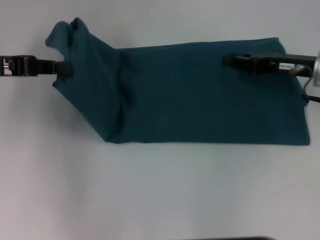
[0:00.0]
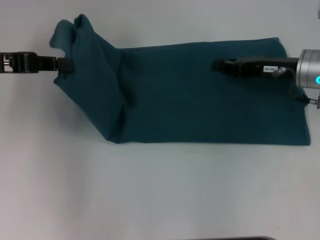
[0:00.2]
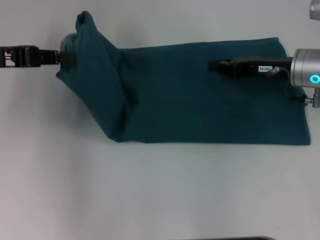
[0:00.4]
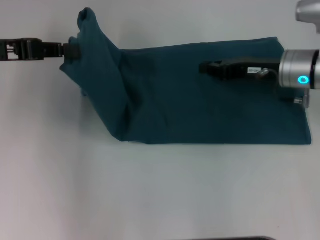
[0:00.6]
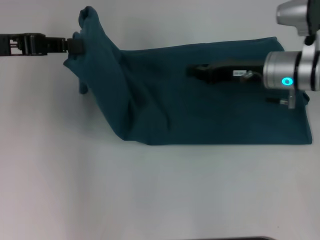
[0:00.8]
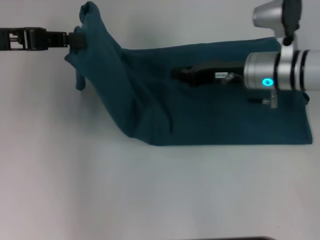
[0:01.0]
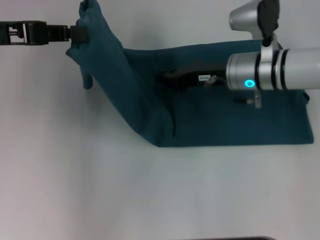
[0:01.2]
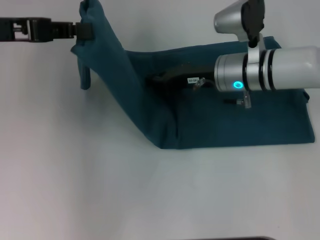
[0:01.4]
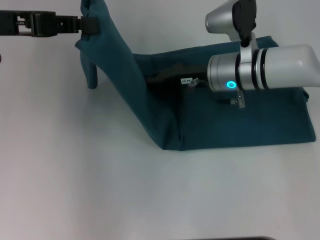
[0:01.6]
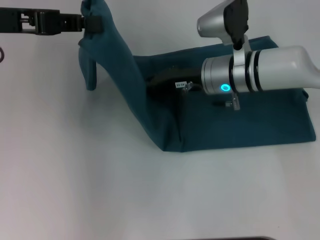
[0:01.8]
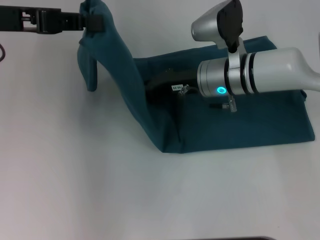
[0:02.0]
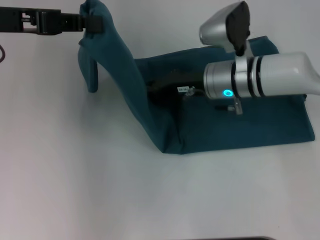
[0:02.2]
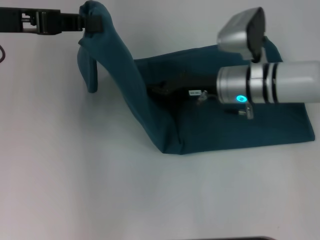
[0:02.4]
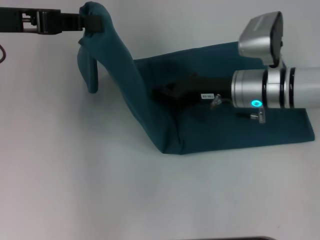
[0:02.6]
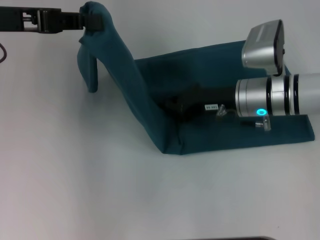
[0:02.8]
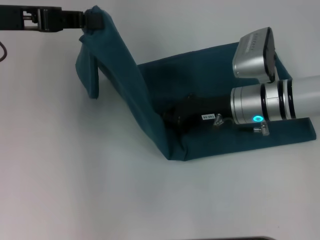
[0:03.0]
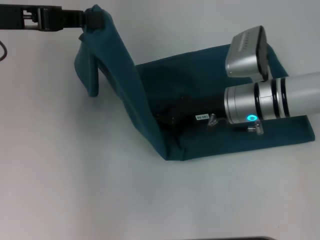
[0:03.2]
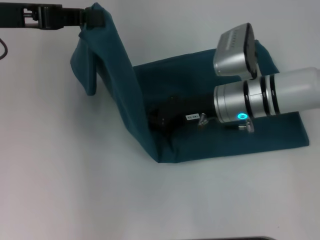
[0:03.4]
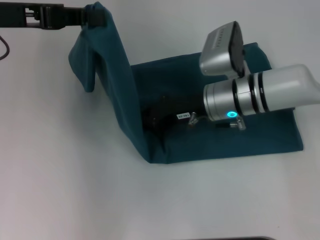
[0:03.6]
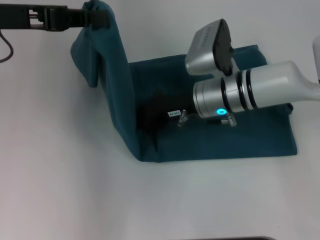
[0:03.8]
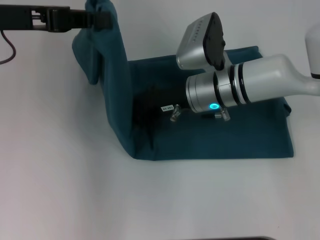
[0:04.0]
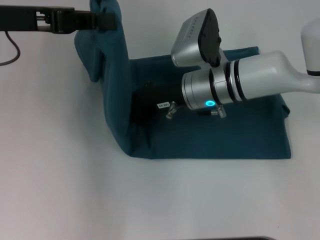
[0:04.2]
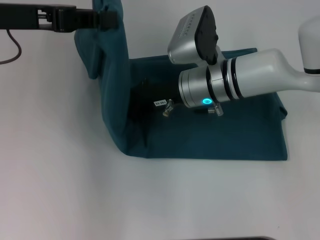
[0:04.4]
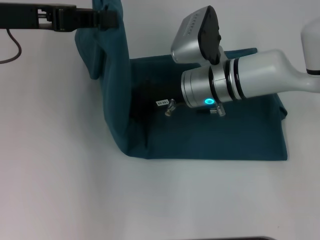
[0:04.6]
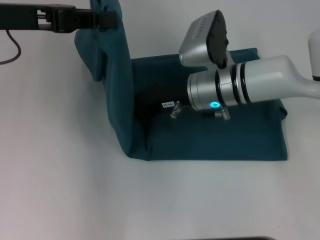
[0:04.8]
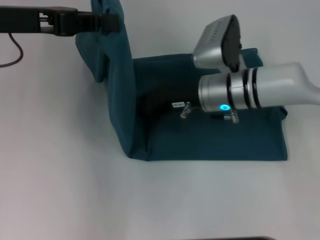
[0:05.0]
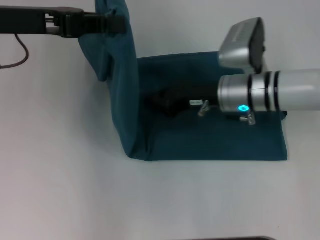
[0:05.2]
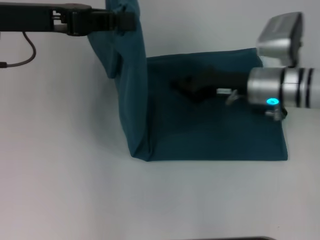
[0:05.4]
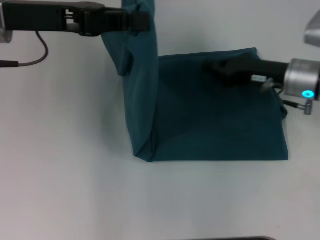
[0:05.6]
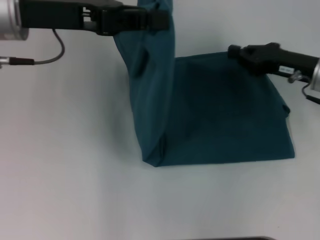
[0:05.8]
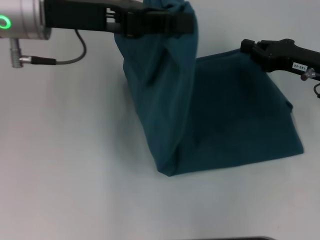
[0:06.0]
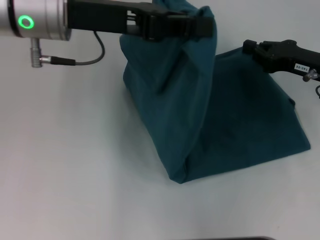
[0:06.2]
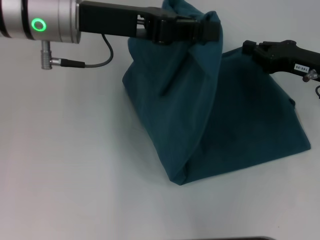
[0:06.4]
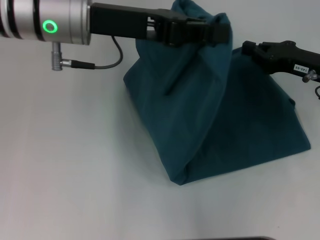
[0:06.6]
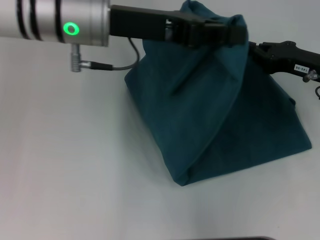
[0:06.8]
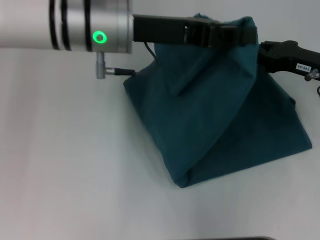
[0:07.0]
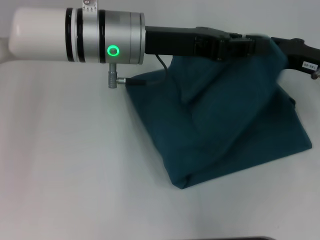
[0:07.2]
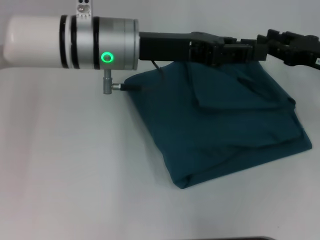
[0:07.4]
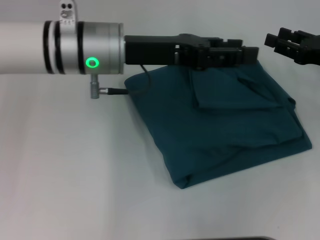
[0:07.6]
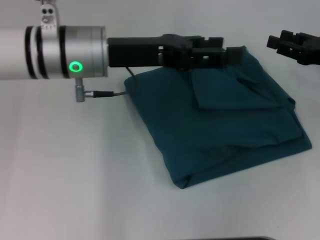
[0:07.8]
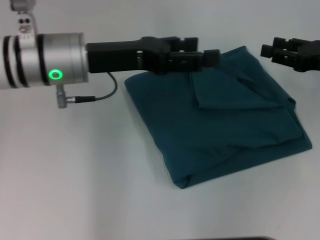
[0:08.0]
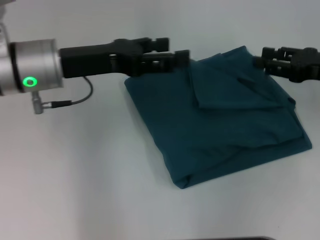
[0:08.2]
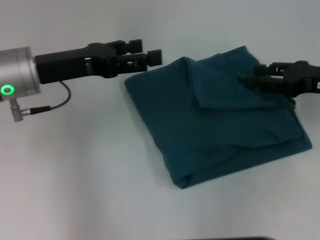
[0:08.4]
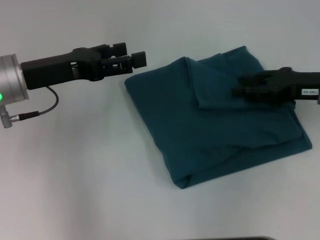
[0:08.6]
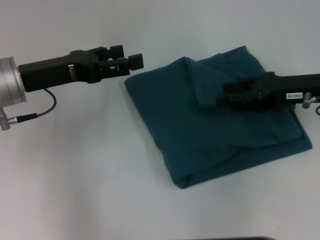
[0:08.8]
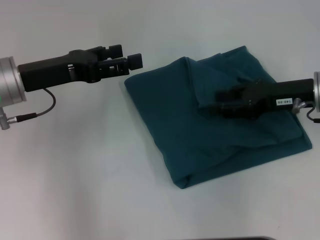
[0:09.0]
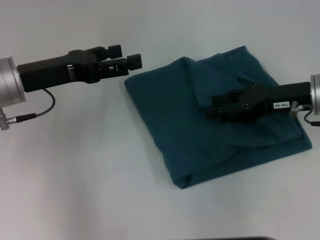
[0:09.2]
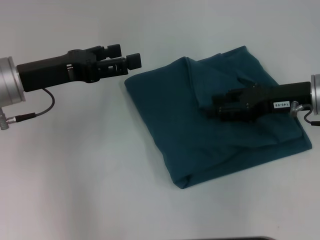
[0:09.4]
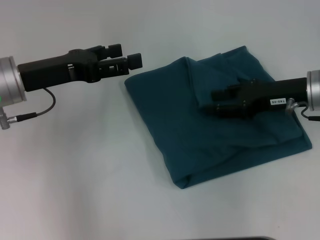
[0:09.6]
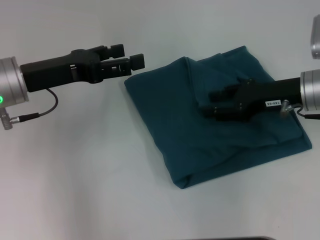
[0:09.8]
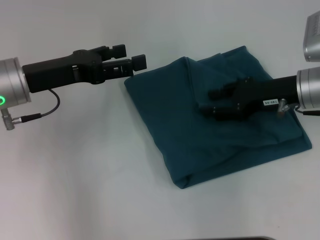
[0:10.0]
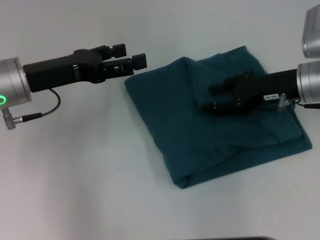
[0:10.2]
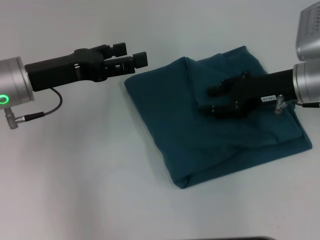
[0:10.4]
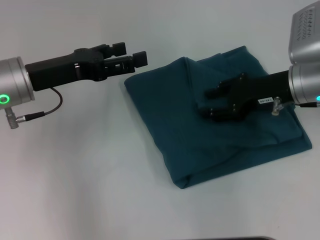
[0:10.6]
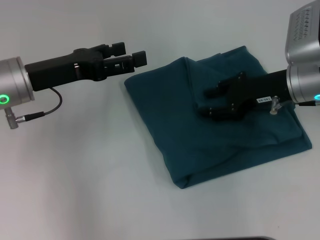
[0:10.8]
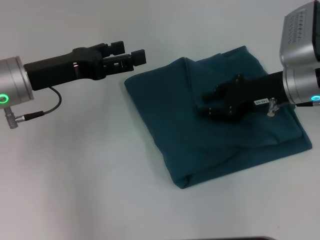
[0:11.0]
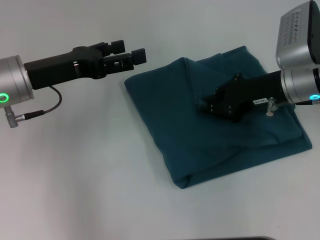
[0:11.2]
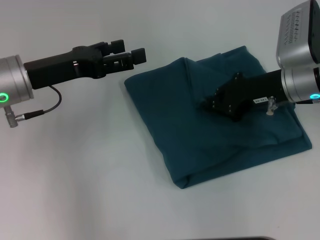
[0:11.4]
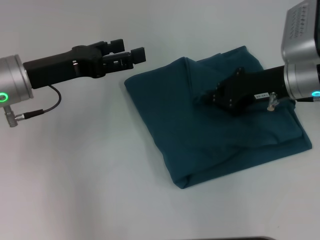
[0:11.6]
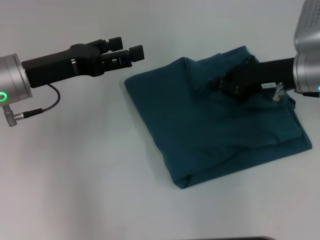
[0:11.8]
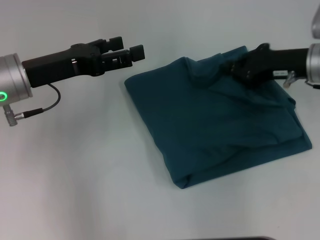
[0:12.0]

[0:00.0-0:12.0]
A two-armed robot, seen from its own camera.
Step, 0:00.0 to 0:05.0: Press the middle of the clothes with your right hand.
Step, 0:05.2 to 0:07.6: Fold the clothes to the left.
0:00.0 to 0:01.6: The right gripper moves to the left, roughly 15 cm, and closes up. The left gripper ends up some 5 cm from where it was.
0:01.6 to 0:03.0: The right gripper ends up some 5 cm from where it was.
0:03.0 to 0:04.4: The right gripper moves to the left, about 10 cm.
0:04.4 to 0:06.0: The right gripper shifts about 20 cm to the right. Meanwhile the left gripper heads to the right, covering roughly 10 cm.
0:06.0 to 0:07.6: The right gripper opens up. Meanwhile the left gripper moves to the right and downward, roughly 10 cm.
0:07.6 to 0:09.0: The left gripper travels to the left by about 10 cm, and opens its fingers. Meanwhile the right gripper moves to the left, about 5 cm.
0:09.0 to 0:10.4: There are only small adjustments of the grippers.
0:10.4 to 0:12.0: The right gripper closes its fingers.

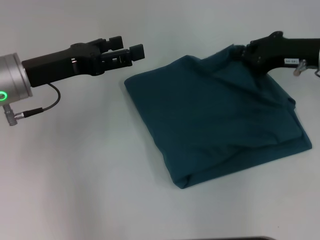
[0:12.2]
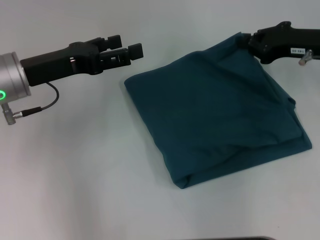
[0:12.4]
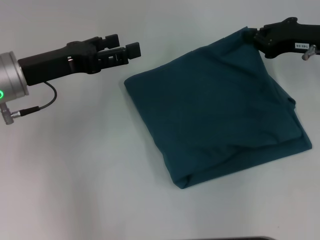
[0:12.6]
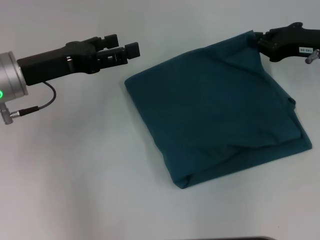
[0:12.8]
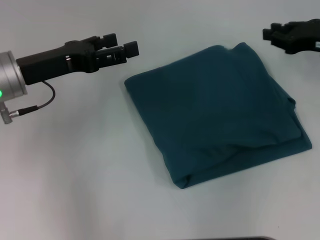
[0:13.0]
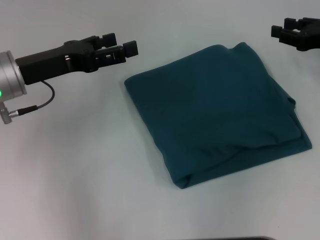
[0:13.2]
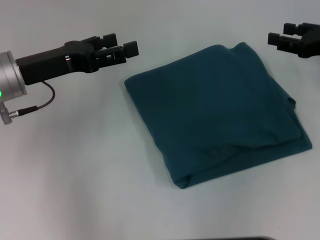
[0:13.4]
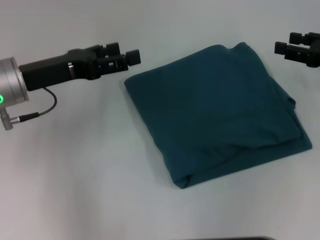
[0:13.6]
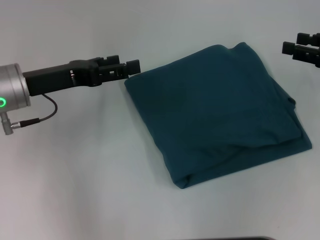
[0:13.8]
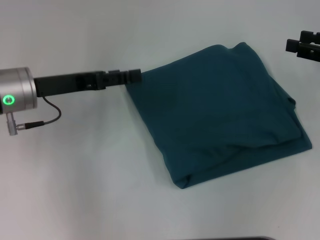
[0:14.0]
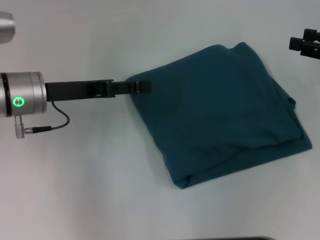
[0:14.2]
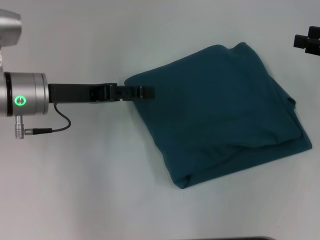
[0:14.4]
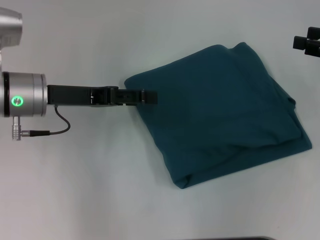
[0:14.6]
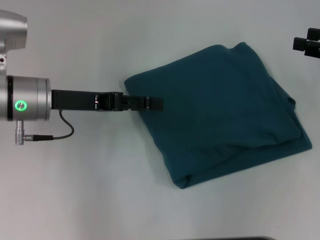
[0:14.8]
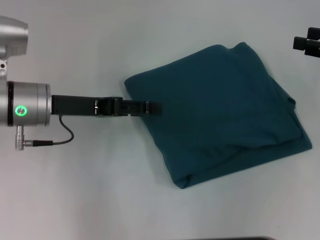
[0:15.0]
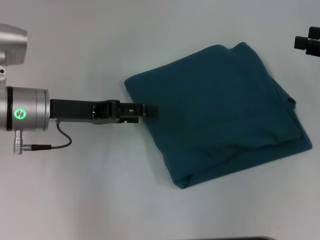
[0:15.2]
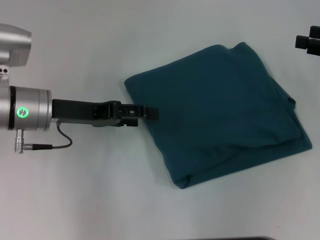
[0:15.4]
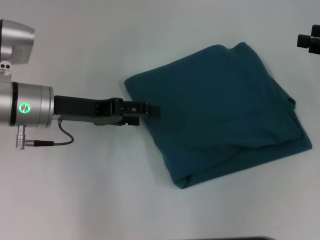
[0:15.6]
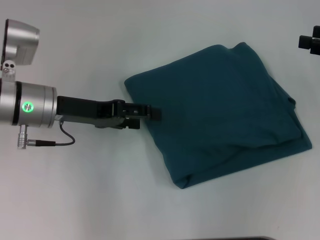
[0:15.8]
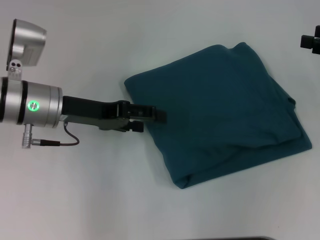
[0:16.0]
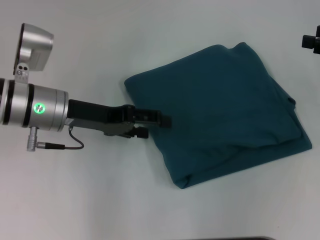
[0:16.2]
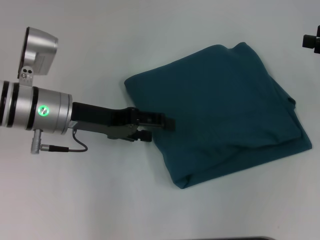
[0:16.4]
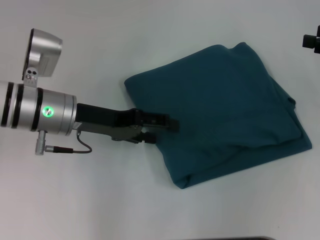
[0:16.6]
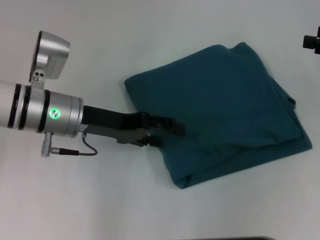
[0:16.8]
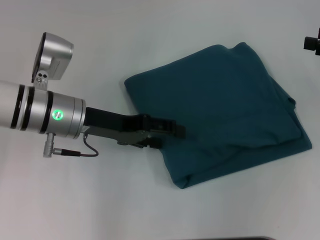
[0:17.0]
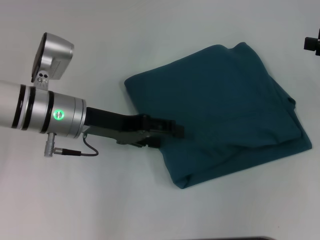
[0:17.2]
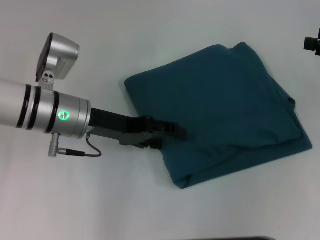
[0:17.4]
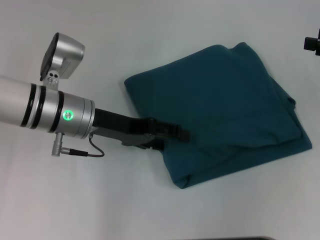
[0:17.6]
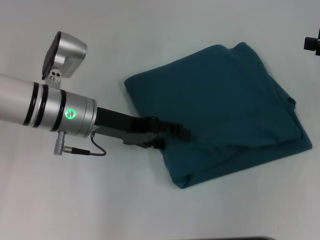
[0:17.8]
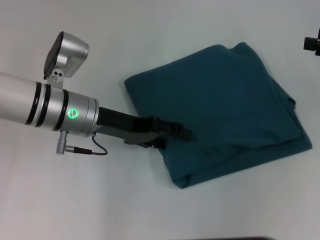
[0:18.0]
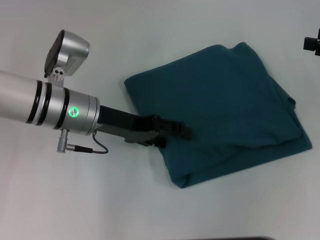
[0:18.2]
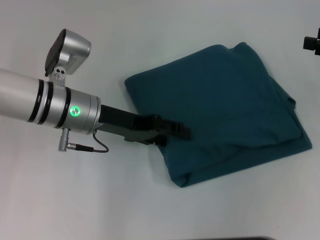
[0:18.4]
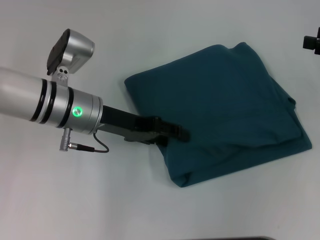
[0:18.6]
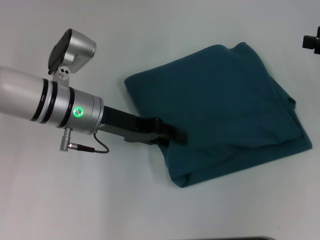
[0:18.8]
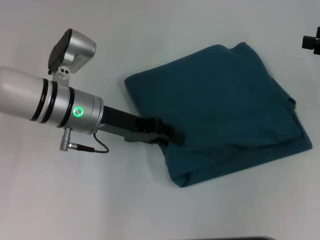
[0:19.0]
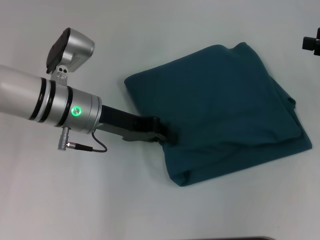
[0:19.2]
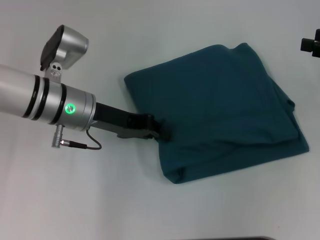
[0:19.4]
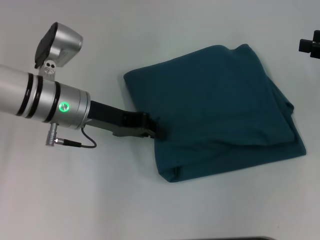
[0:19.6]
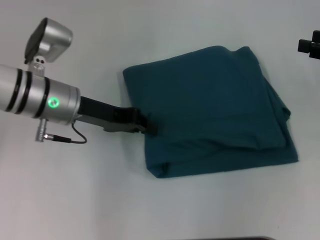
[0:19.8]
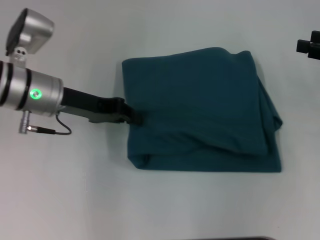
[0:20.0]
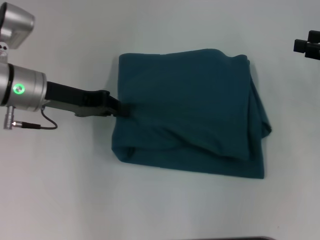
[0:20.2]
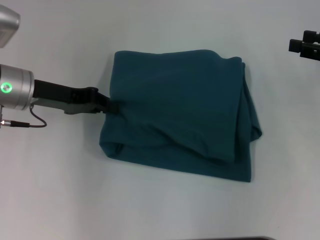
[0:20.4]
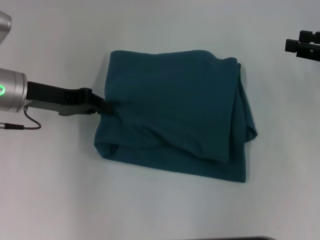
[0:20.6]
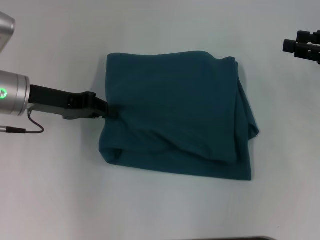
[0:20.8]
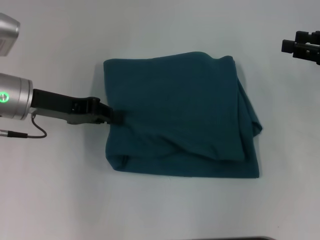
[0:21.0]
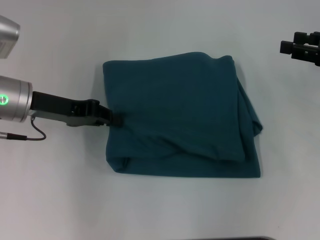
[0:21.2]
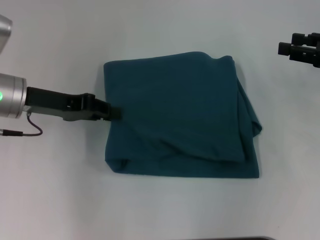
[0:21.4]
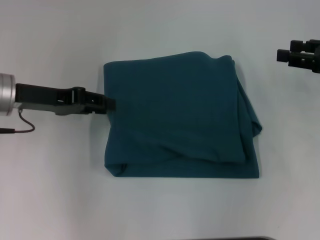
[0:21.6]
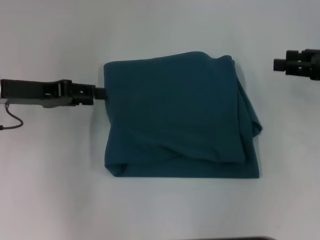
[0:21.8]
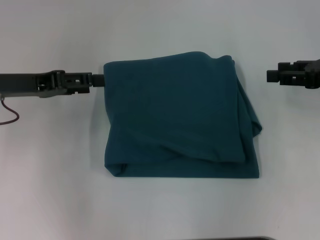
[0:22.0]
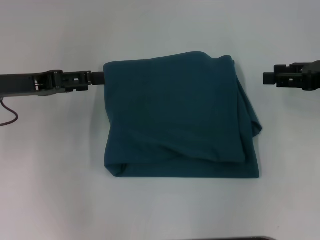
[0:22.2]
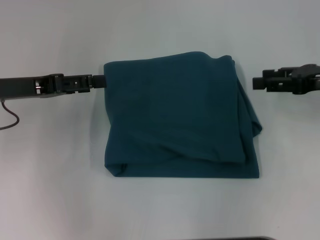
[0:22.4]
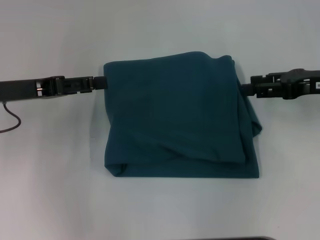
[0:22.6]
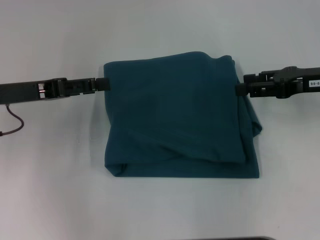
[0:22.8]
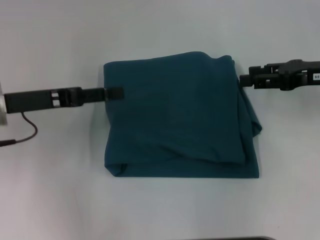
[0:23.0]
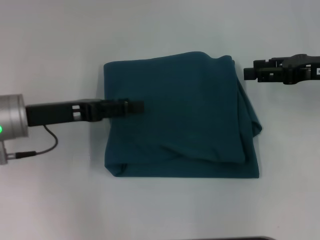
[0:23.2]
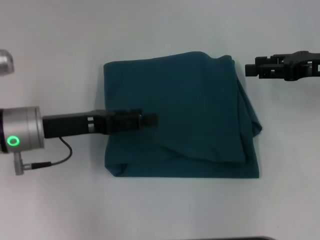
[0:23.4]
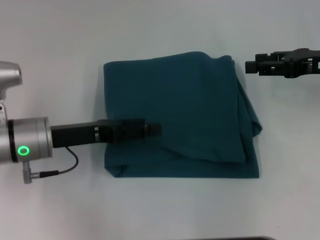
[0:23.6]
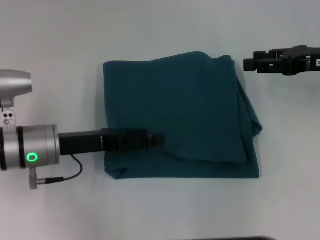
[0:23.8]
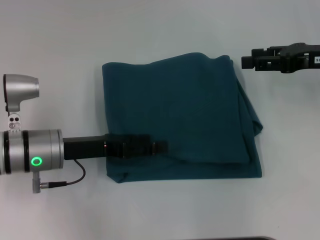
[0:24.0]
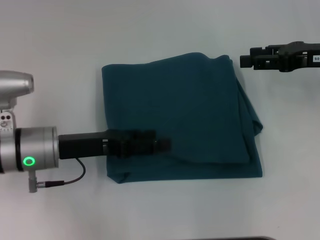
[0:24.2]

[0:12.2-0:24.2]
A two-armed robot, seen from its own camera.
0:12.2 to 0:13.8: The right gripper travels to the right by approximately 10 cm, and opens up.
0:15.2 to 0:16.6: There are only small adjustments of the grippers.
0:16.6 to 0:18.2: The grippers move only a little.
0:18.2 to 0:19.8: The left gripper closes its fingers.
0:19.8 to 0:21.2: The left gripper heads to the left, covering roughly 5 cm.
0:21.2 to 0:22.6: The left gripper opens.
0:22.6 to 0:24.2: The left gripper is displaced to the right and downward by roughly 10 cm.
